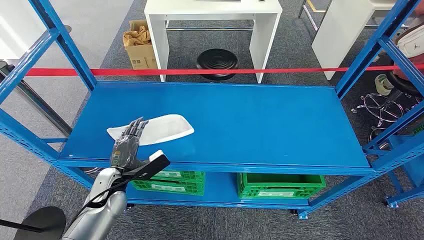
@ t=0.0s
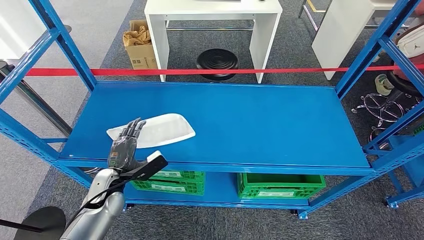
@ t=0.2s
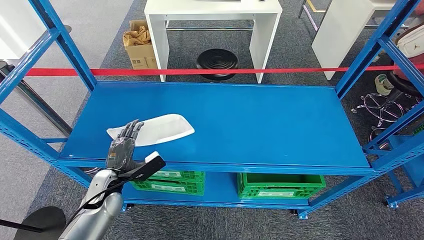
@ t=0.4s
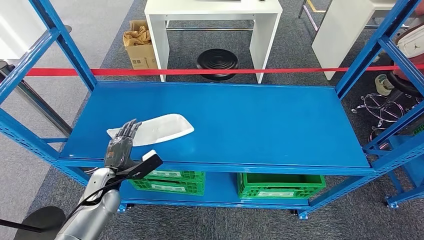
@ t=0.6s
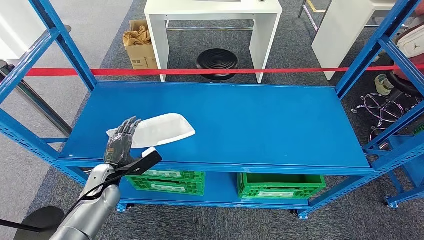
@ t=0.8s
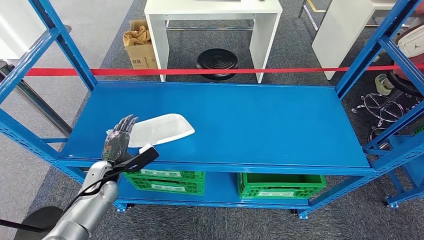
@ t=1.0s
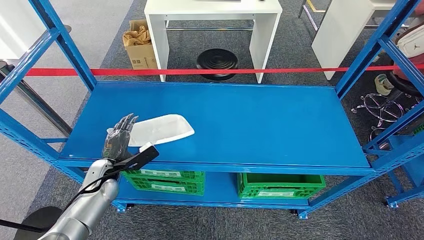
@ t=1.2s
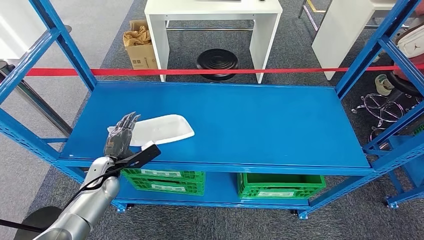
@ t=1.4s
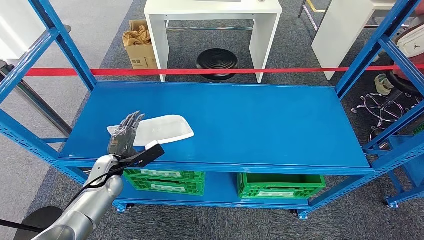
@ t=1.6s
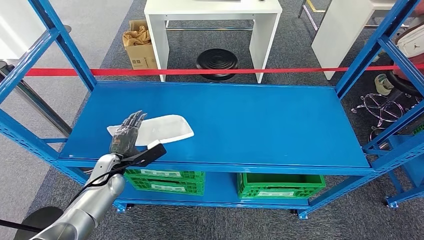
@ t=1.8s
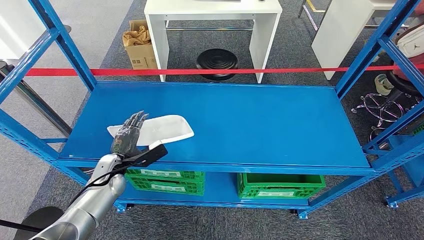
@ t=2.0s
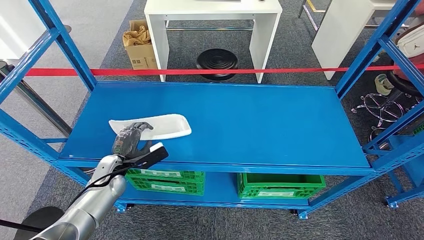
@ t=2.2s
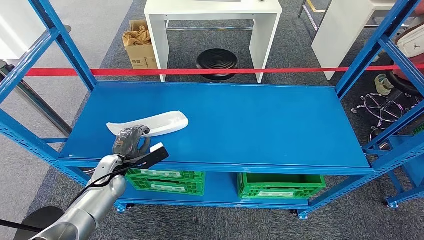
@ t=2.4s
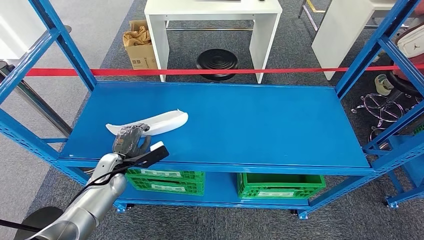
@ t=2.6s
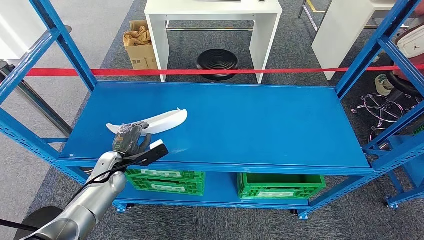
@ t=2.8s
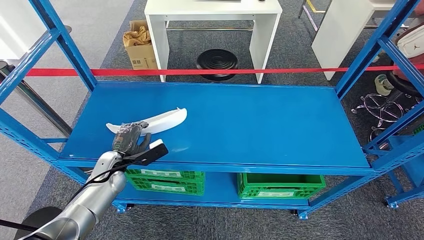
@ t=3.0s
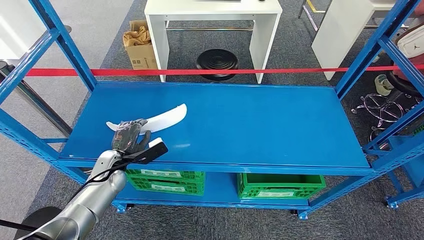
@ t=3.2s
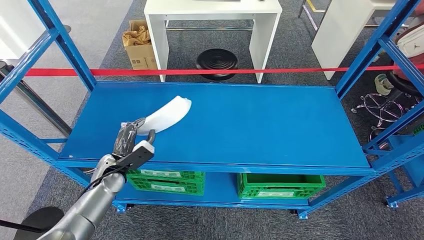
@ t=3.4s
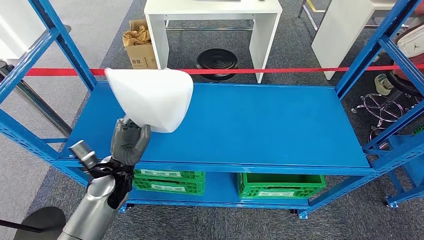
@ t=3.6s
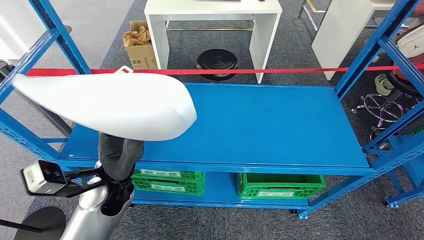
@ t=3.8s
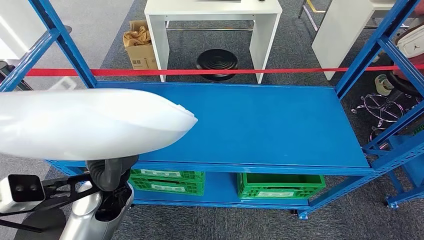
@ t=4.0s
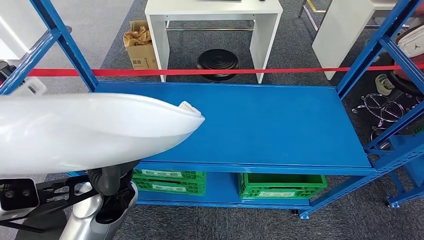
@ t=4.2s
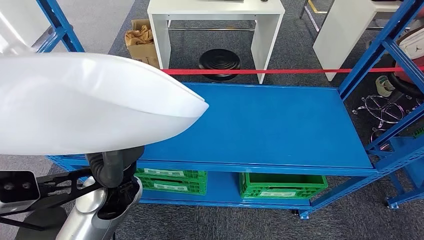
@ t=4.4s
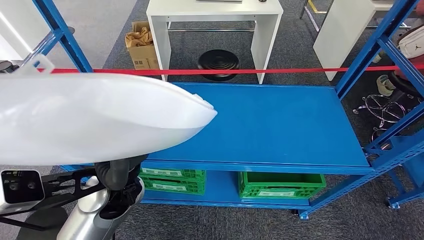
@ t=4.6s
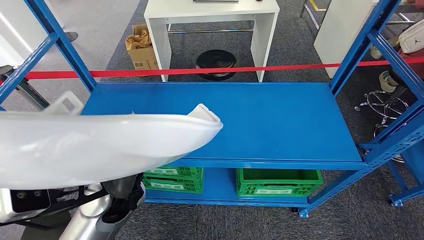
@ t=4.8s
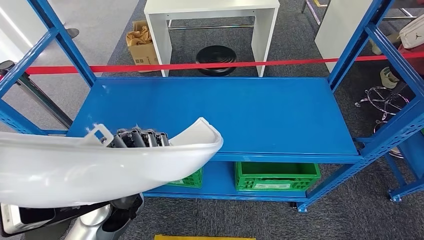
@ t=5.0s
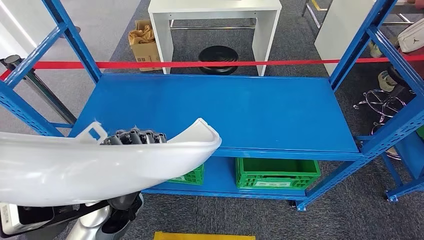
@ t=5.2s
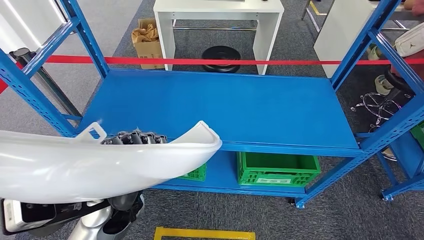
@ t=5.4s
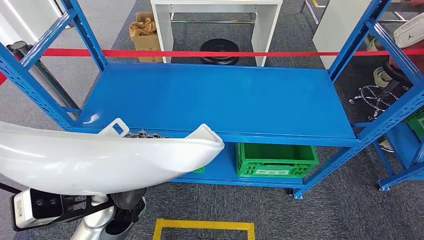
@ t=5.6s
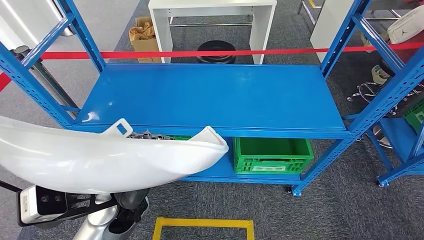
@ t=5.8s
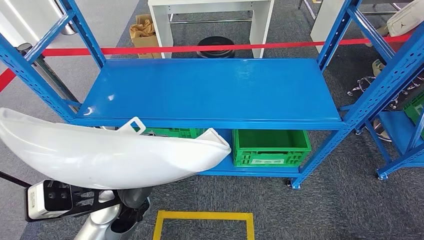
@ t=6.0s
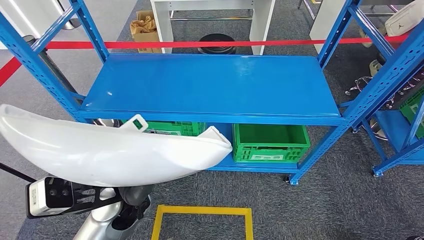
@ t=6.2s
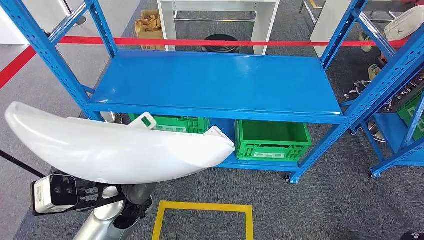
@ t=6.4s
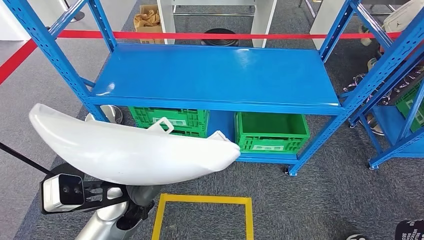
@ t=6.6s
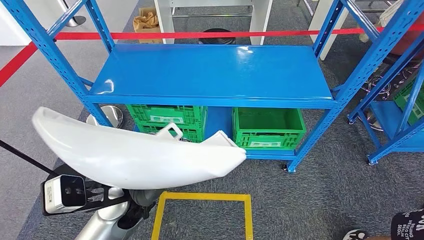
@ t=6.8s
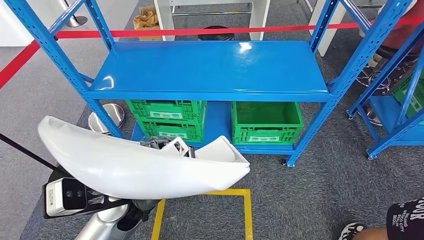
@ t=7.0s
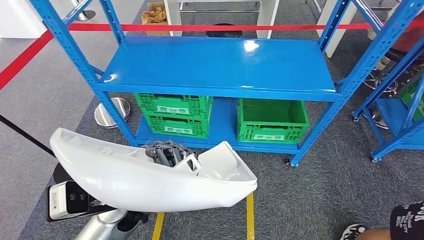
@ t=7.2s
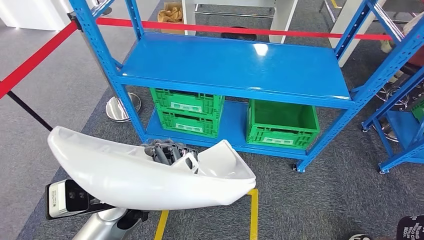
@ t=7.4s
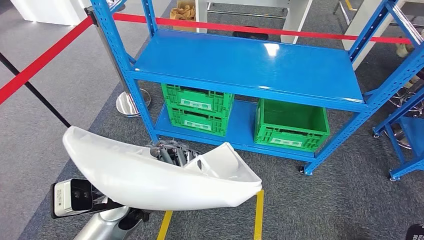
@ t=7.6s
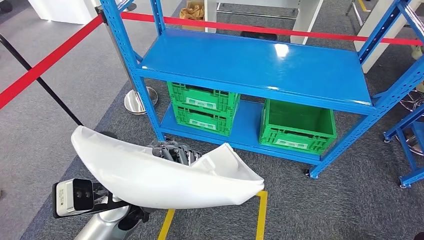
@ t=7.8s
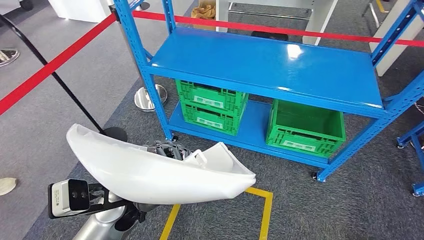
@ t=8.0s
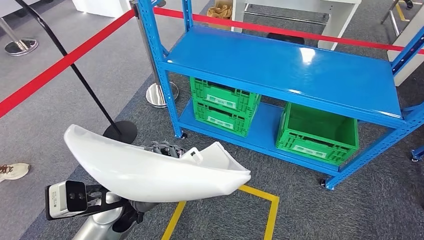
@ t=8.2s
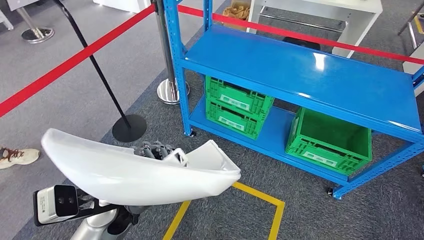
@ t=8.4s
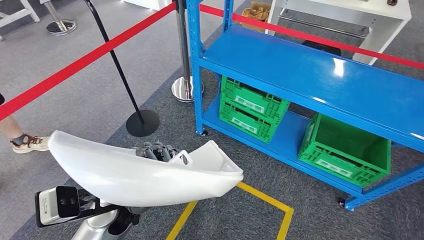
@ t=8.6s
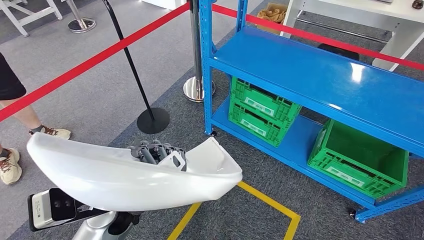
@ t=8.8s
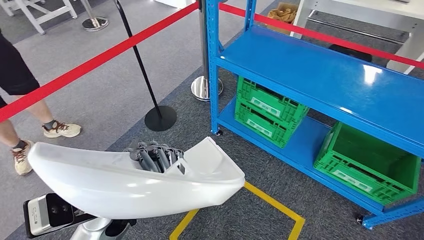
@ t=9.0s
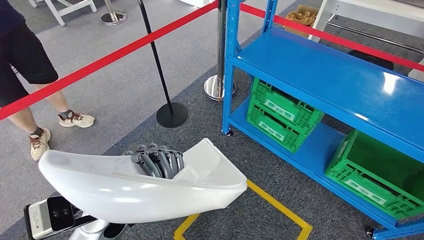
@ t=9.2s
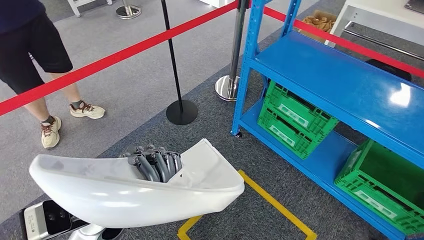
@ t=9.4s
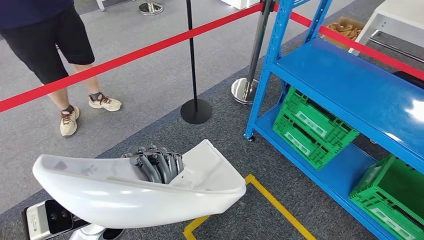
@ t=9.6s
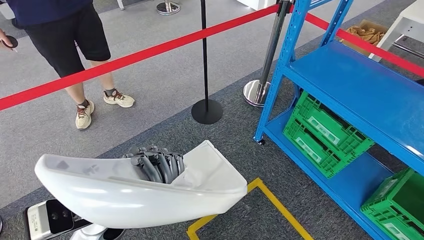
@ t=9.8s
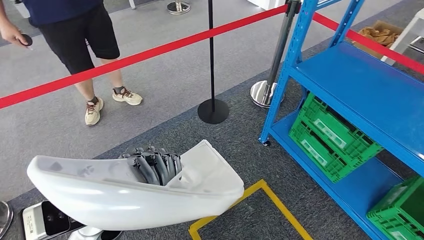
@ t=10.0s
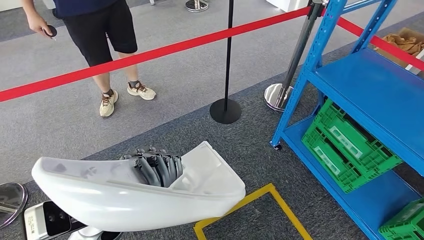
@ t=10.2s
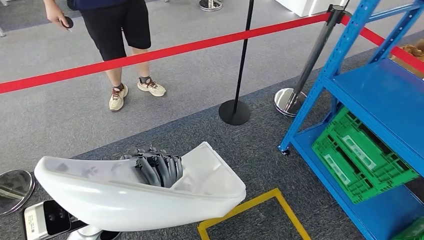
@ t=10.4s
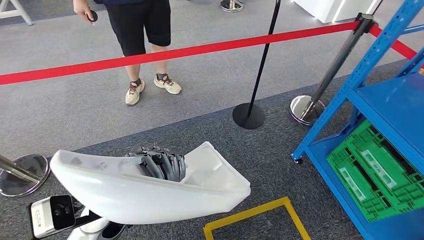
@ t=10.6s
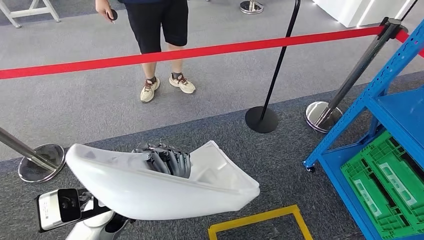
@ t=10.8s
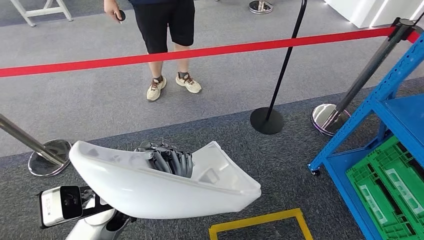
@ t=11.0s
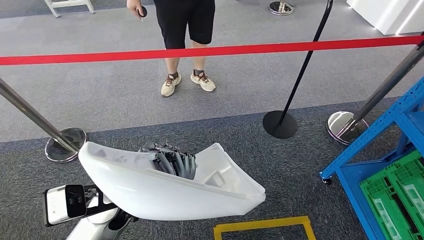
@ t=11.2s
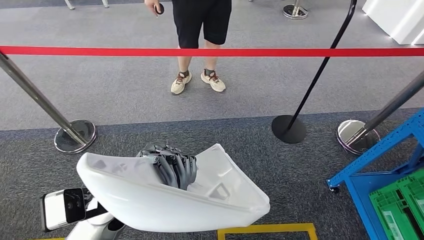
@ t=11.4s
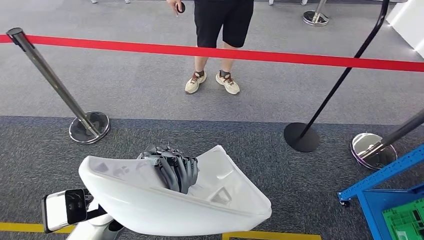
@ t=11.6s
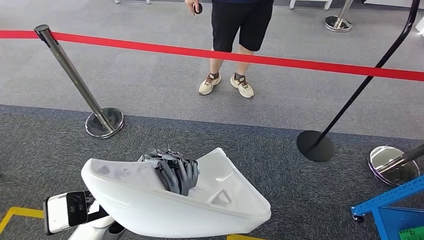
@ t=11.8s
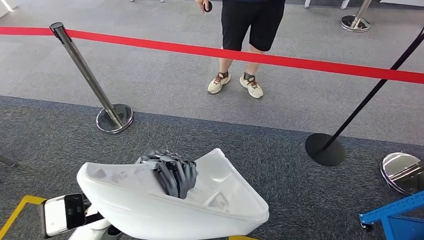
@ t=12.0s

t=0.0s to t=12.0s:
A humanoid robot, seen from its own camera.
Step, t=0.0s to t=3.8s: Pick up the small component from the shelf.
t=1.6s to t=3.0s: Both hands stay about where they are.

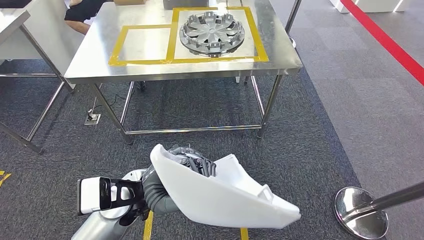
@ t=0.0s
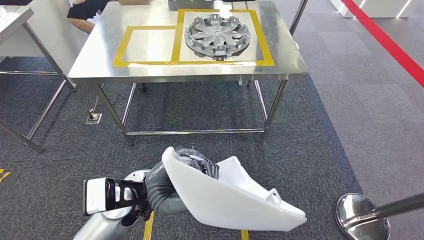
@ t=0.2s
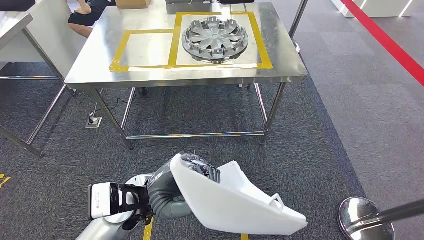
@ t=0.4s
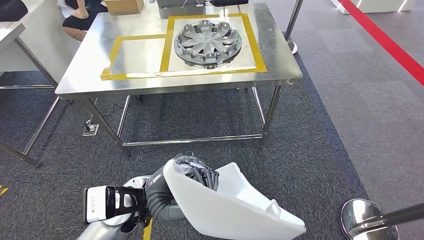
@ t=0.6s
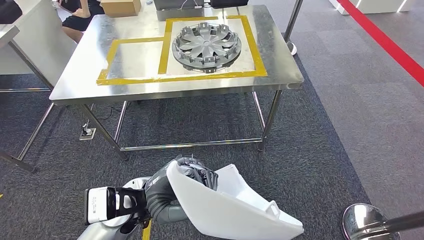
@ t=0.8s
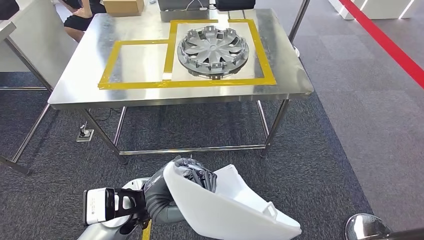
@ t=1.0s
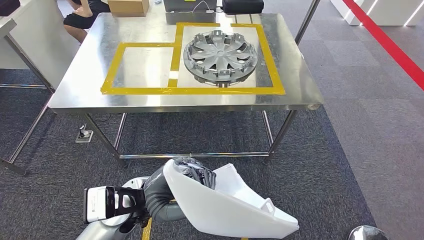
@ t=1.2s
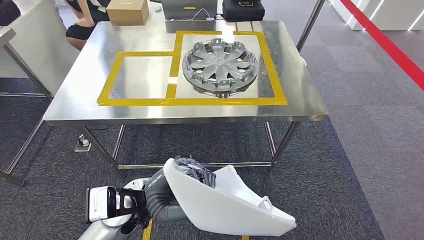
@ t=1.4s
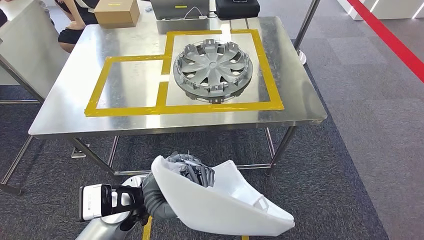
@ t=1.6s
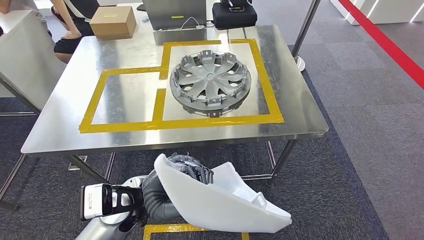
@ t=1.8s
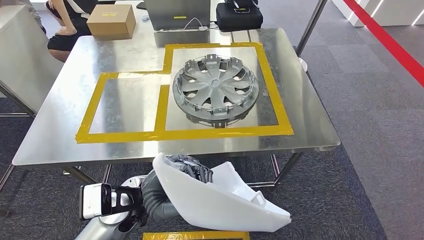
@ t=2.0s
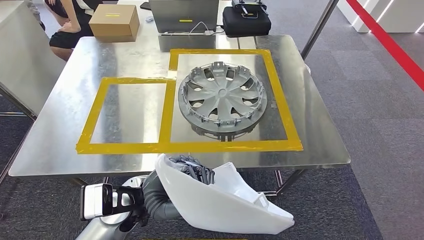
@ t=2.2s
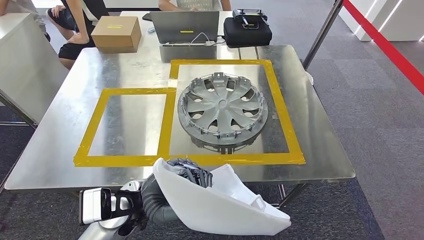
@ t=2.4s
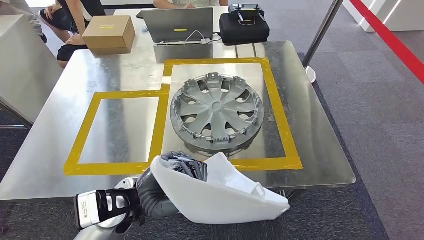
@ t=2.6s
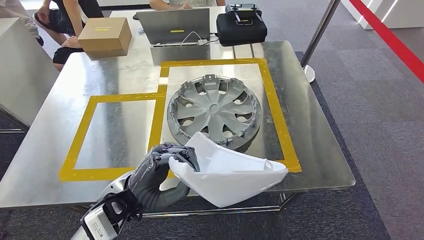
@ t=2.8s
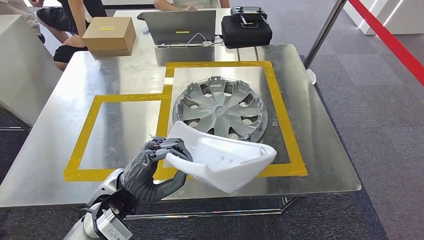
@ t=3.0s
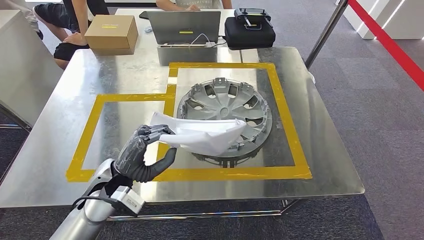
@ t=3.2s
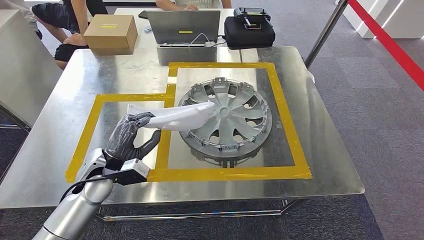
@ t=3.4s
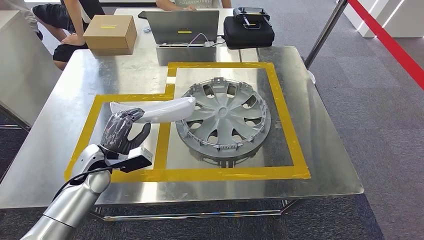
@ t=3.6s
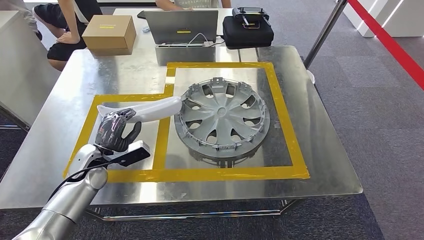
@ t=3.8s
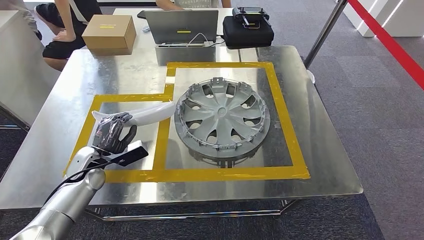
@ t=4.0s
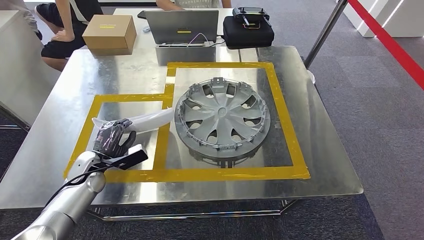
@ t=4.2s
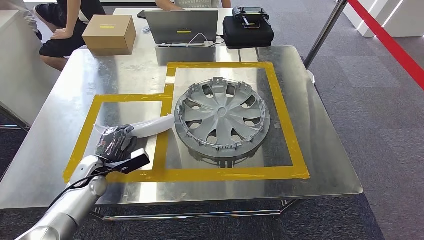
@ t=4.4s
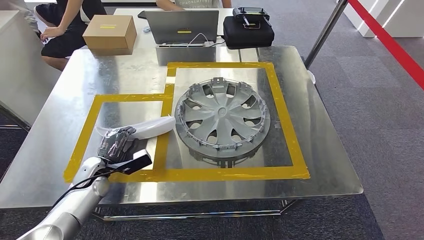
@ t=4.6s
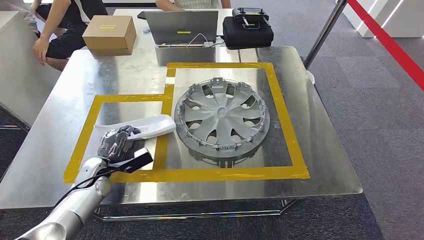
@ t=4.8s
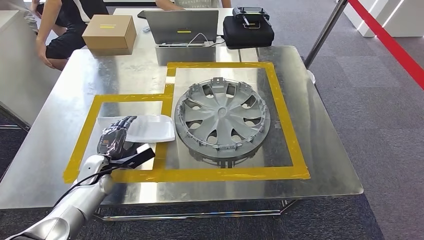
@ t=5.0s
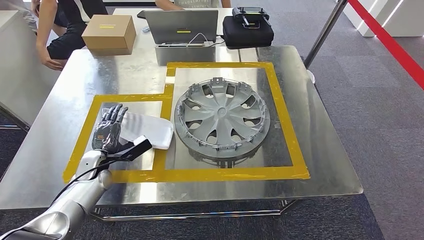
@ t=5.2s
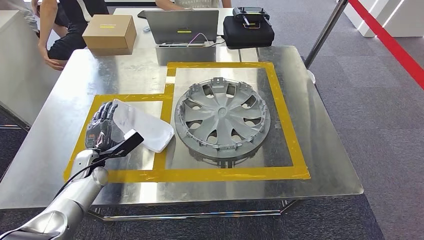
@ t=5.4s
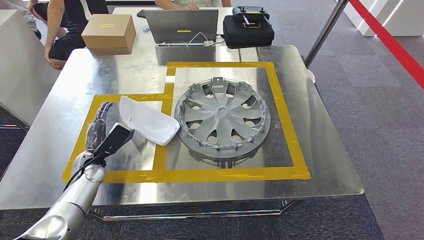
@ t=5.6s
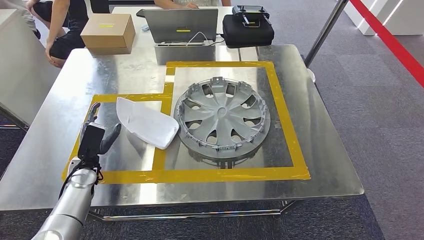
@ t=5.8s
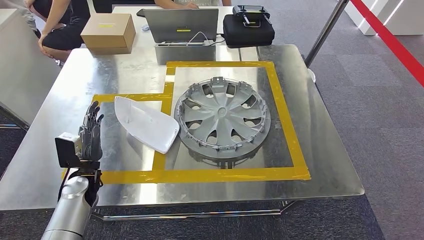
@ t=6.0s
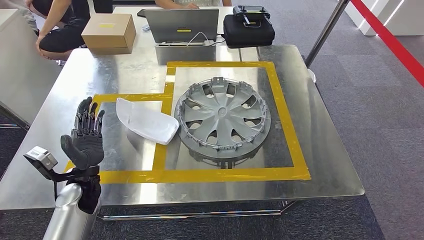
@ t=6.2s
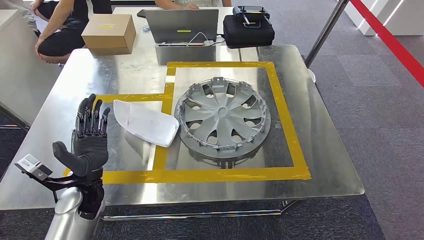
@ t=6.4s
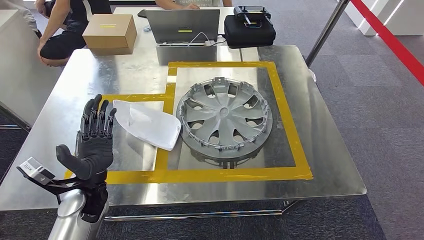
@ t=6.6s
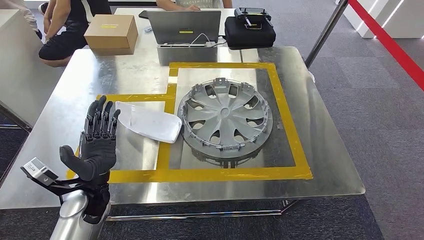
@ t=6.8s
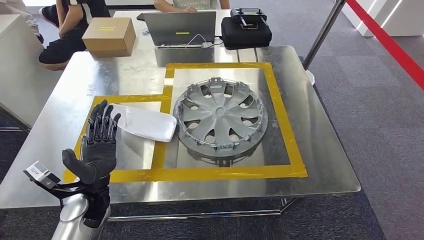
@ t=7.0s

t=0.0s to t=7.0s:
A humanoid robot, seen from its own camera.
Step, t=0.0s to t=3.0s: Move the small component to the workbench.
Step, t=3.2s to t=6.4s: Insert the small component into the corresponding slot on the workbench.
